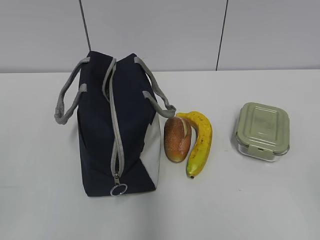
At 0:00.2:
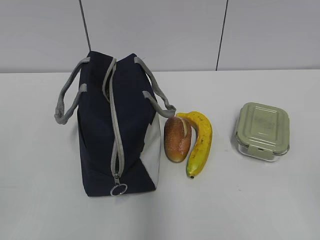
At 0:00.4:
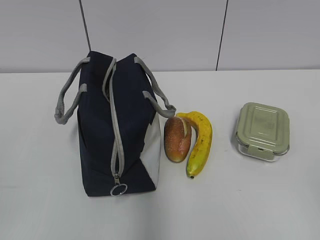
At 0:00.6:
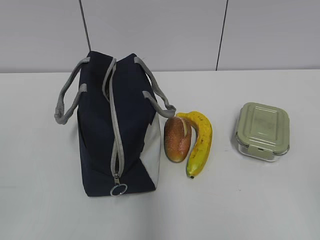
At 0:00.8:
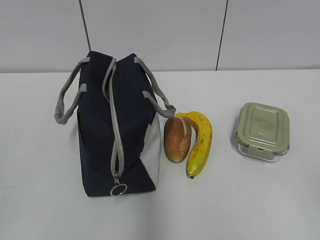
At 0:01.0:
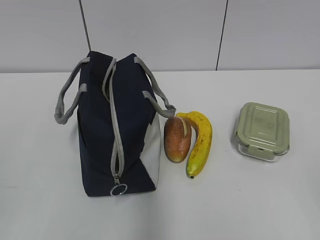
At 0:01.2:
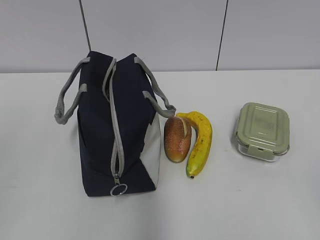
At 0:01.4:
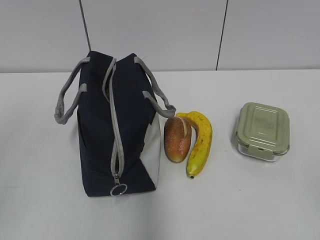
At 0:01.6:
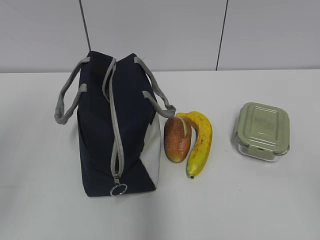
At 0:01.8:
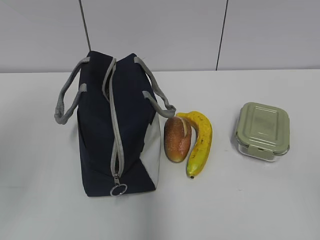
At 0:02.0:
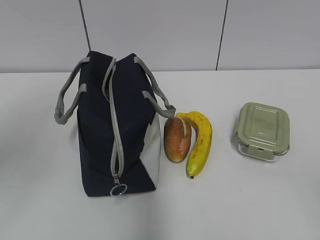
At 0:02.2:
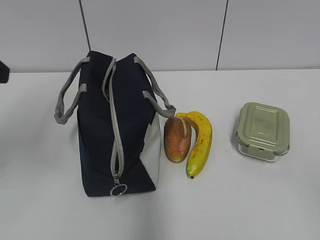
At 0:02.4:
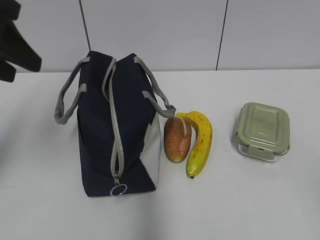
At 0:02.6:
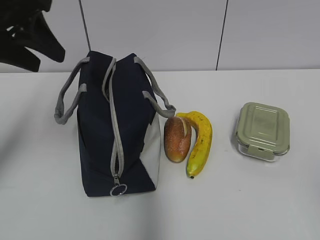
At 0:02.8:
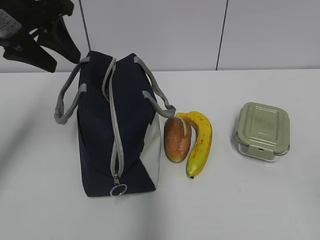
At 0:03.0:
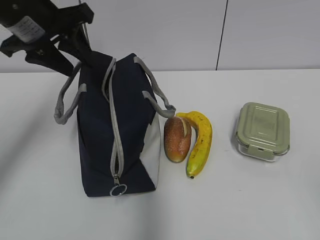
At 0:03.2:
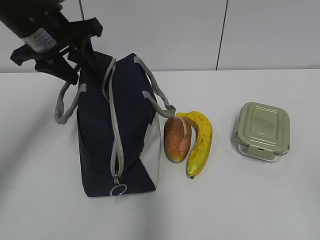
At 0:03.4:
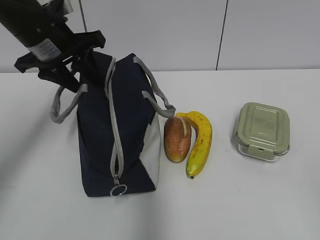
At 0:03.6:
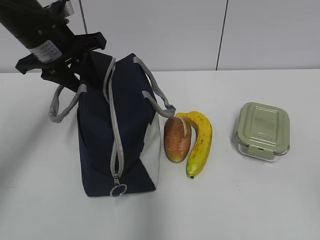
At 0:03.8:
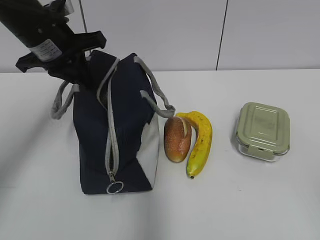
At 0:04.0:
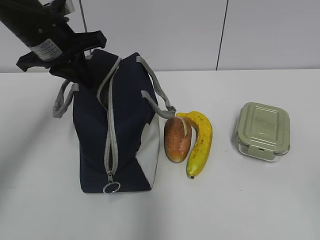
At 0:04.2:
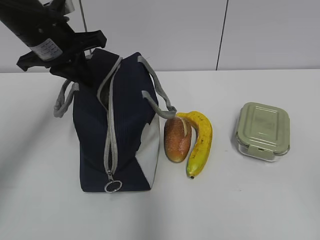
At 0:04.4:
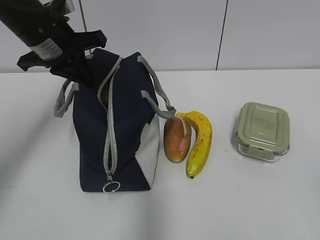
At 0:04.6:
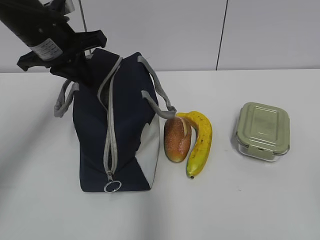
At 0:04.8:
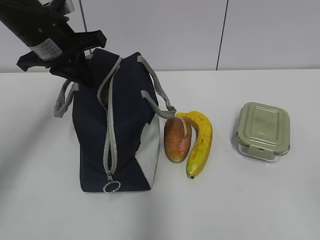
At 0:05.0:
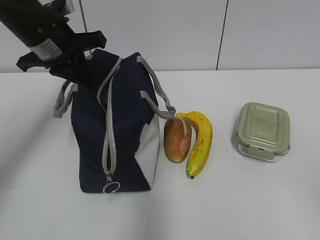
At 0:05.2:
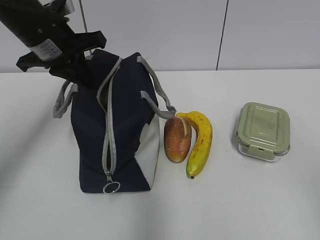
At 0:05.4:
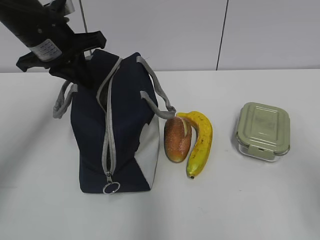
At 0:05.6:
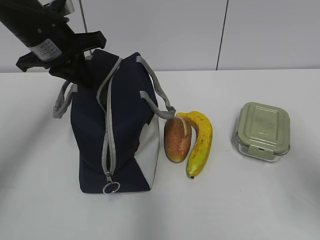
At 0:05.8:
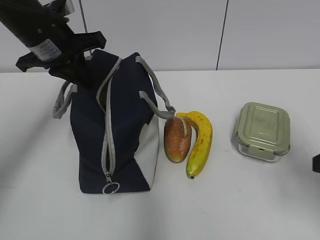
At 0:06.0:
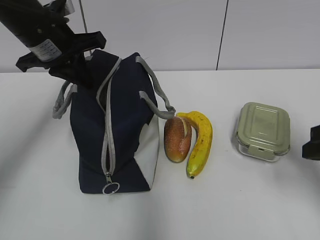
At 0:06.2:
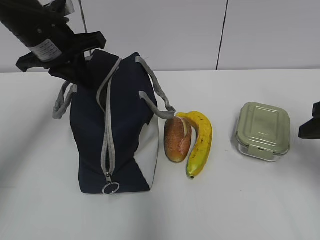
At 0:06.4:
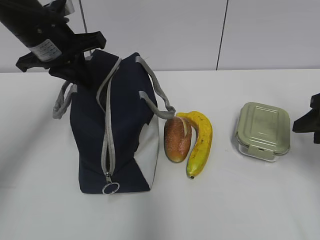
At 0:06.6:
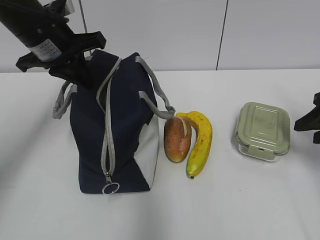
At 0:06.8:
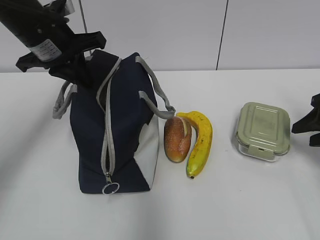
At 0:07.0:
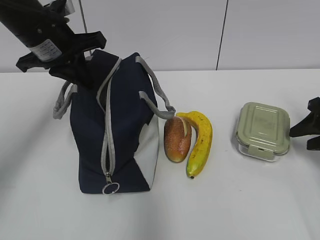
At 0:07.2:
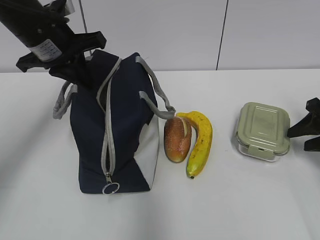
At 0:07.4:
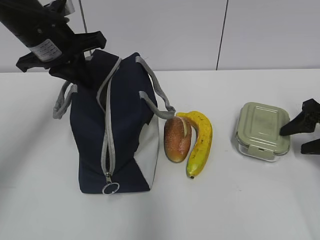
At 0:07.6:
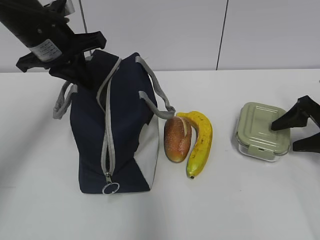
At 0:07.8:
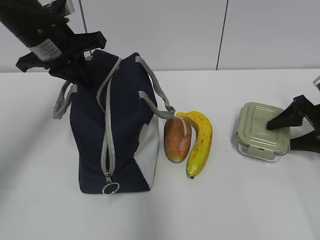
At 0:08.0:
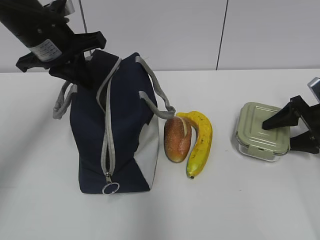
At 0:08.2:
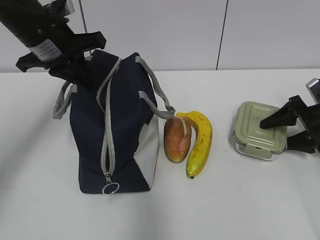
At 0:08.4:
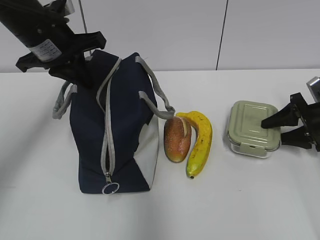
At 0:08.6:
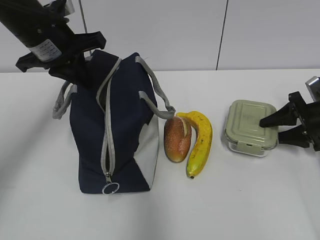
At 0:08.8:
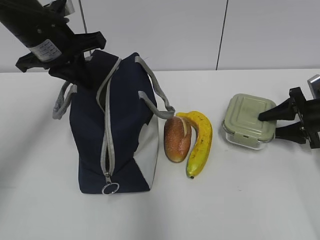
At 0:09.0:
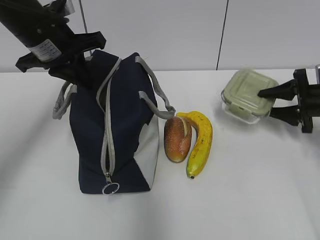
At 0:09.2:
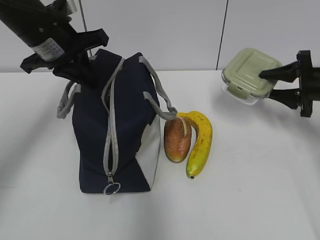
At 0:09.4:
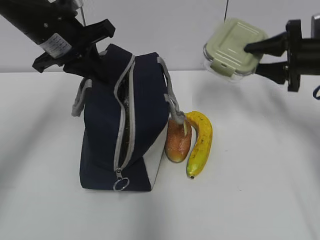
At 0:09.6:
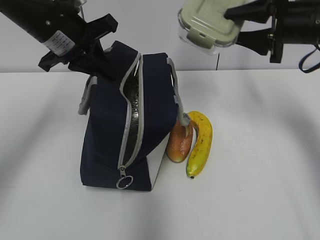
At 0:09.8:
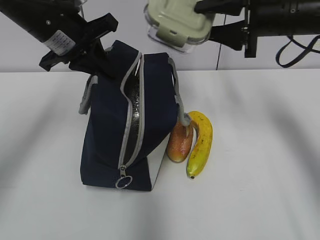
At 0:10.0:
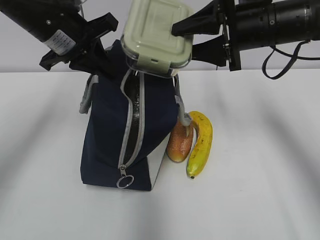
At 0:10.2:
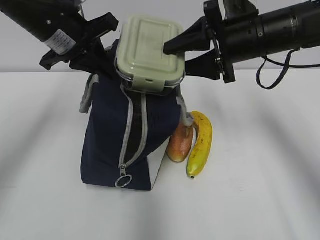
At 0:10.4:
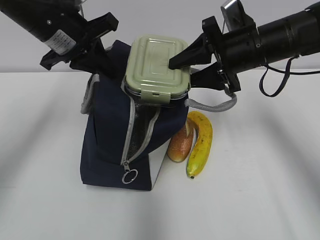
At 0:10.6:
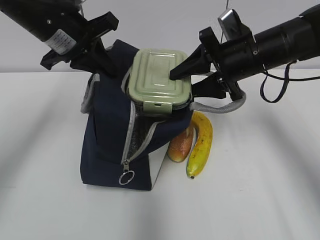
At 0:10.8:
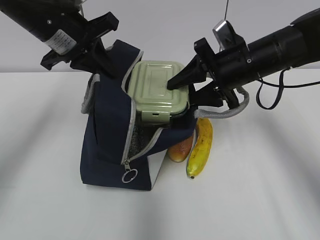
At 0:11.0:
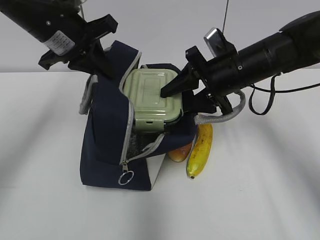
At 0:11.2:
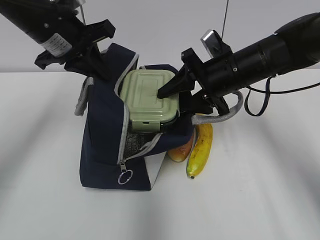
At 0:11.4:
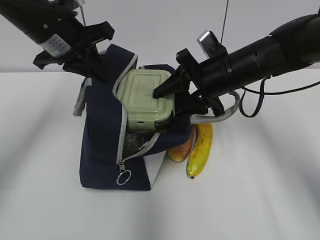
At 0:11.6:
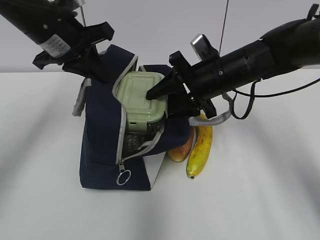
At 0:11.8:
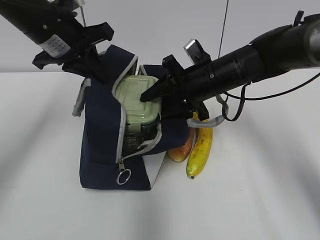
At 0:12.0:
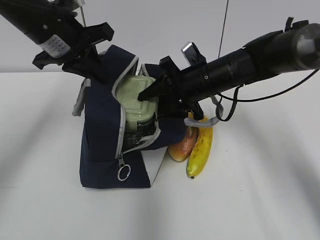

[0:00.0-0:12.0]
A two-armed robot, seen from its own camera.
Step, 0:00.0 to 0:04.0: Grab the lunch bag with your left hand.
Step, 0:04.2 to 0:08.8: Grab the lunch box with your right hand.
0:01.6 to 0:03.0: The left gripper shifts approximately 25 cm forward and to the right.
0:03.0 to 0:04.4: The left gripper ends up some 5 cm from where it was, and closes its fingers.
0:04.4 to 0:06.0: The right gripper is displaced forward by about 20 cm.
0:06.0 to 0:07.6: The right gripper goes some 15 cm forward, downward and to the right, and opens up.
0:07.6 to 0:09.0: The right gripper closes up.
0:09.0 to 0:10.4: The right gripper shifts some 20 cm to the left and upward.
0:10.4 to 0:12.0: The right gripper goes approximately 10 cm downward and to the left.

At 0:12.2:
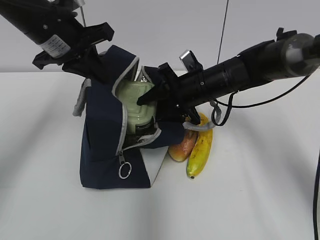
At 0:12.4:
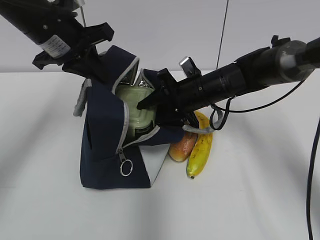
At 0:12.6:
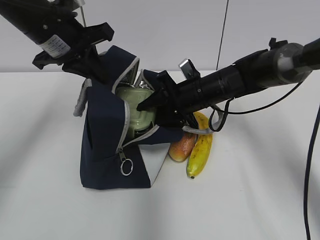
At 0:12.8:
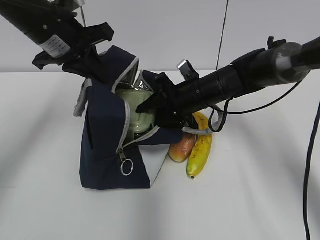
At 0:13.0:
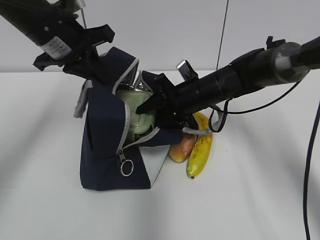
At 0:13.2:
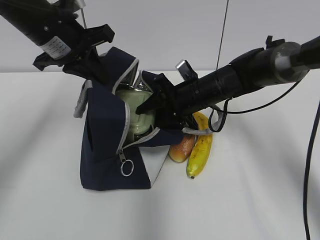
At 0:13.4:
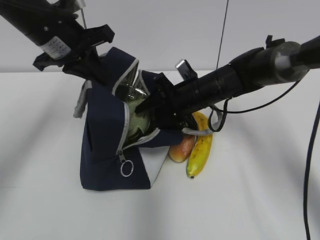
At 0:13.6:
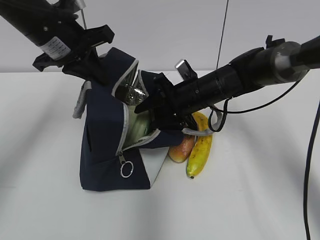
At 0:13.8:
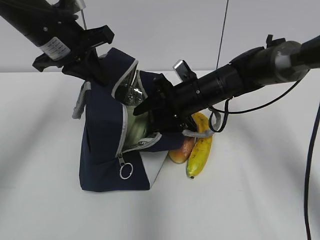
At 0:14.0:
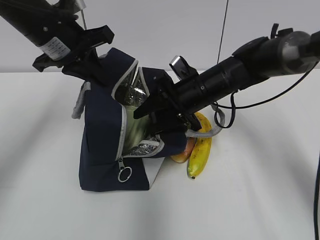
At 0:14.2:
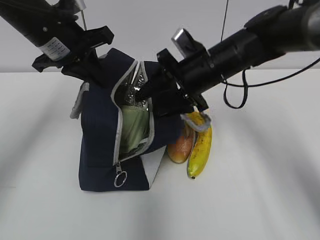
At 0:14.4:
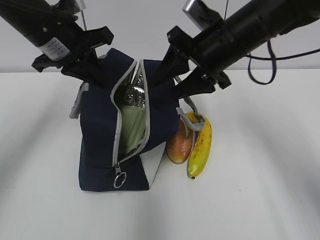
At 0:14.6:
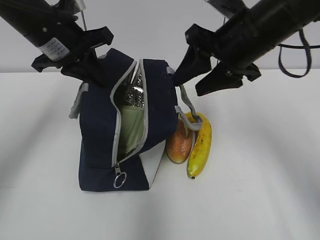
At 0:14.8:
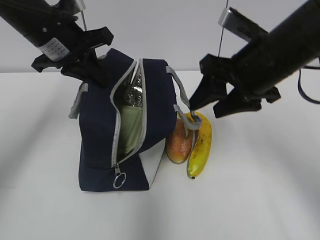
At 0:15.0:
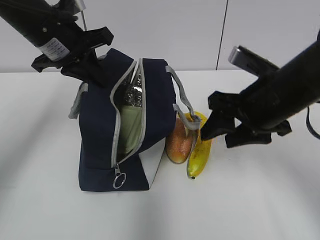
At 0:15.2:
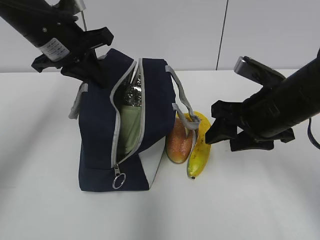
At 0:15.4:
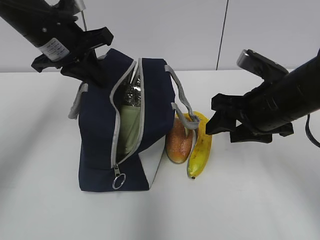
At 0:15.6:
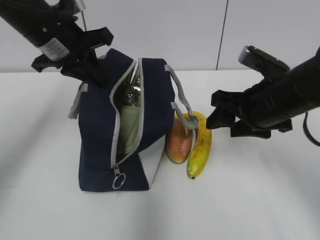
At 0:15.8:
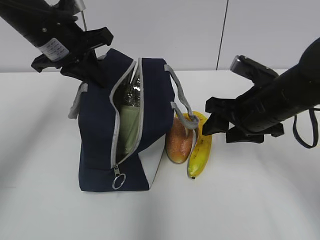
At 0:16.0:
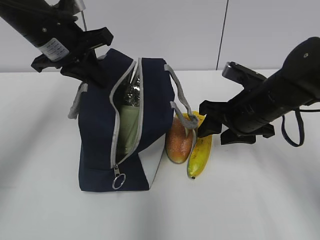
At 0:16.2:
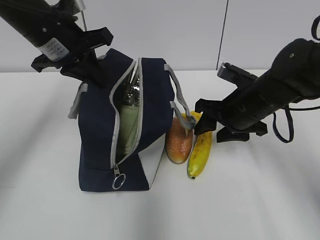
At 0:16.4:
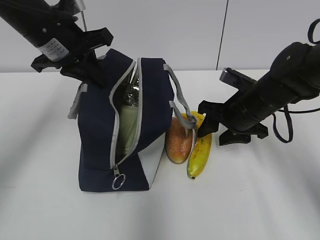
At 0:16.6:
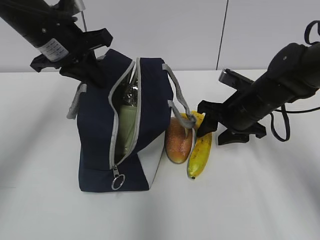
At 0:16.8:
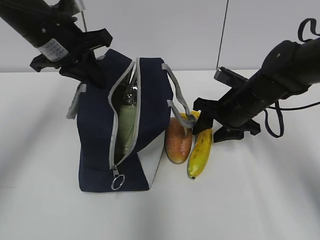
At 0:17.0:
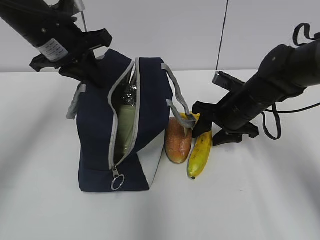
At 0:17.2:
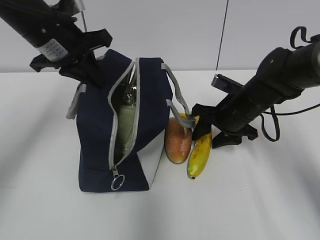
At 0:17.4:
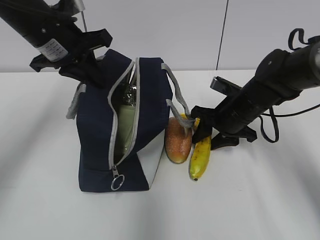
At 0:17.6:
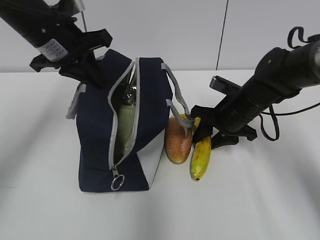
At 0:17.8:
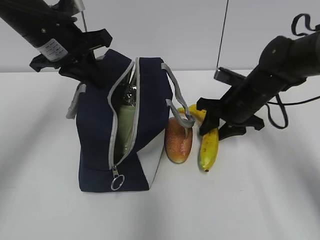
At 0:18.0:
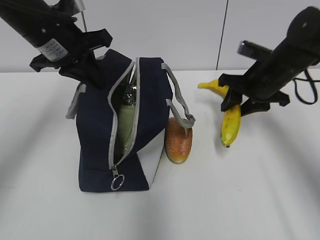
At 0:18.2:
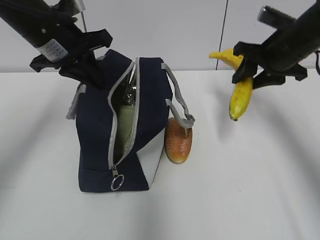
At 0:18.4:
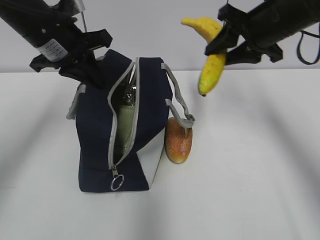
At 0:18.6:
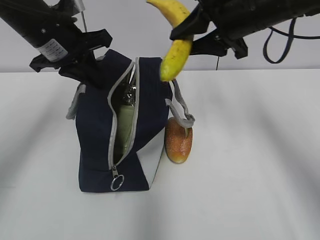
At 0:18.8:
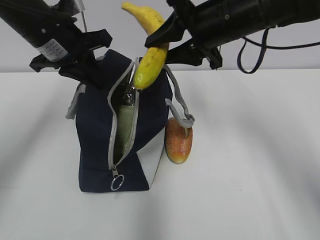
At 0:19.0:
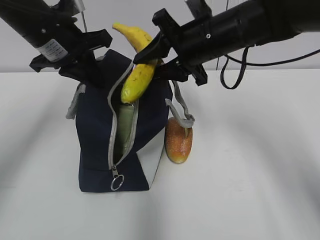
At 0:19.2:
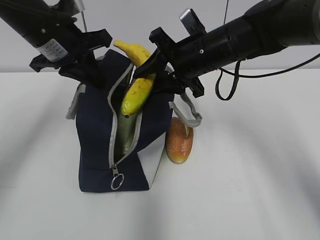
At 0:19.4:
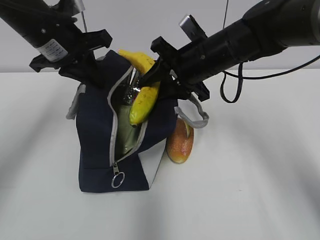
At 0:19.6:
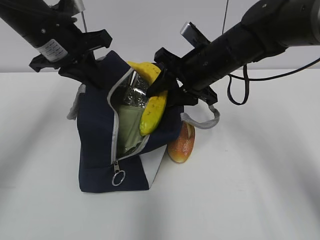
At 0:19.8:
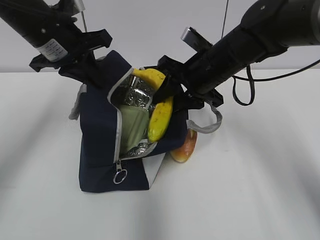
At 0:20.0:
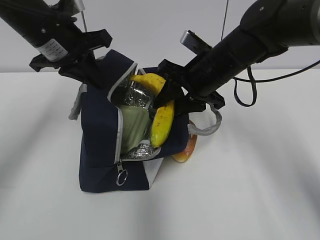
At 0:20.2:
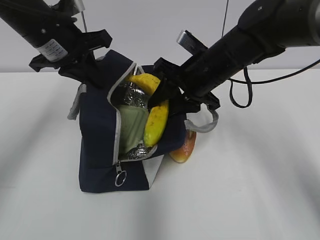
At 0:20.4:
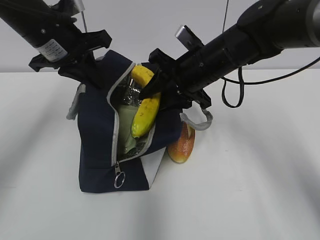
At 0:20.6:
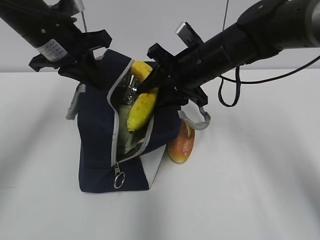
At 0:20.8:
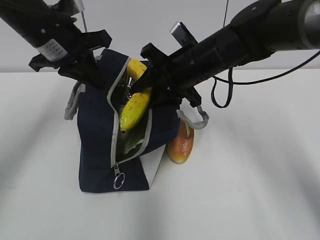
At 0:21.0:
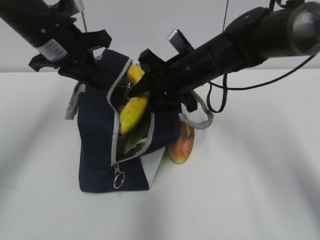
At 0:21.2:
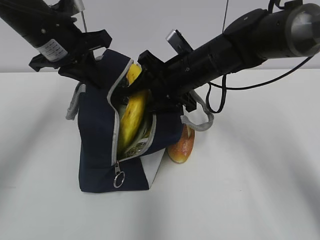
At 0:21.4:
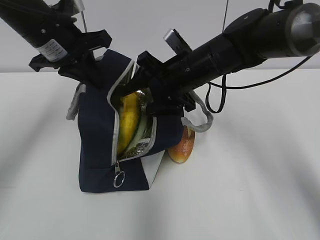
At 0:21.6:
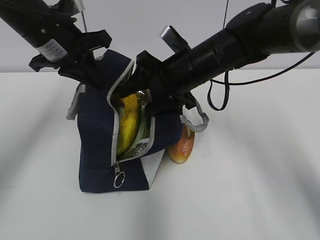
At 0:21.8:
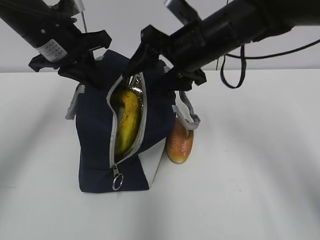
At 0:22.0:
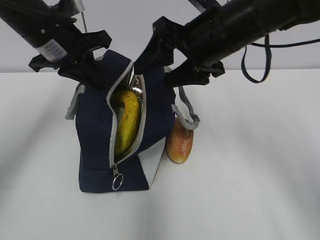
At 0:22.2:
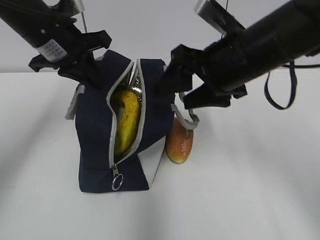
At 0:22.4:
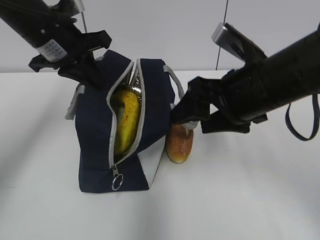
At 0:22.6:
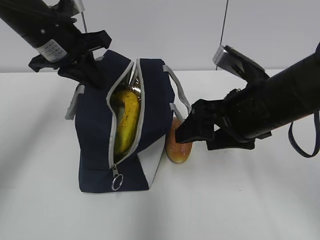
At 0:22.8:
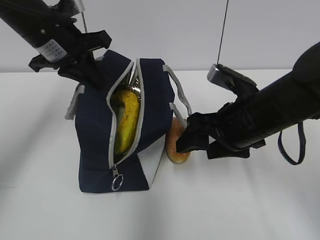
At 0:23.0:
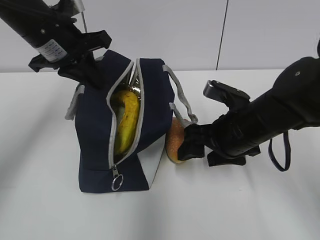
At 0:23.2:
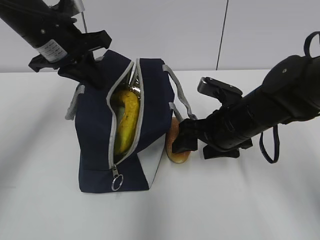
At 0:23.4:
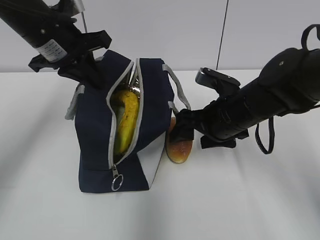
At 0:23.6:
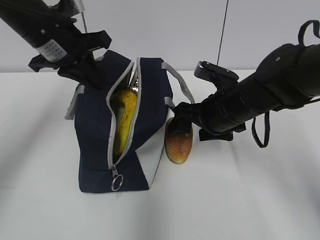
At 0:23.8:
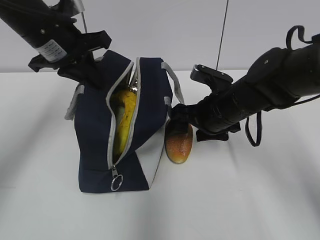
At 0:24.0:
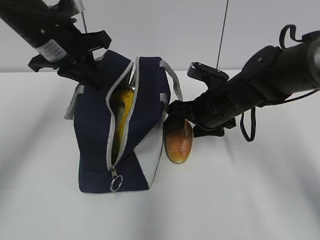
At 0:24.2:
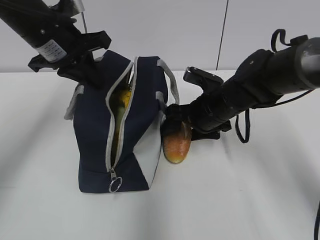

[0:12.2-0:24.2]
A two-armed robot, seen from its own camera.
Step, 0:13.8 to 0:17.6: Grab the banana with your right hand.
Step, 0:17.8 to 0:21.4: Place it into the bag with your right hand.
0:12.2 to 0:13.8: There are only small adjustments of the grippers.
0:13.8 to 0:15.2: The right gripper travels backward, to the right and upward by approximately 15 cm.
0:15.2 to 0:16.6: The right gripper moves forward and downward, about 10 cm.
0:16.6 to 0:18.2: The right gripper moves upward and to the right, approximately 10 cm.
0:18.2 to 0:19.8: The right gripper goes approximately 15 cm to the left.
0:19.8 to 0:21.2: The grippers move only a little.
0:21.2 to 0:22.6: The right gripper moves backward and to the right, approximately 15 cm.
0:22.6 to 0:24.2: The right gripper heads forward and downward, covering about 15 cm.
